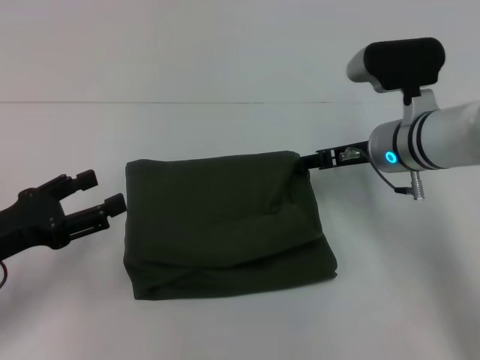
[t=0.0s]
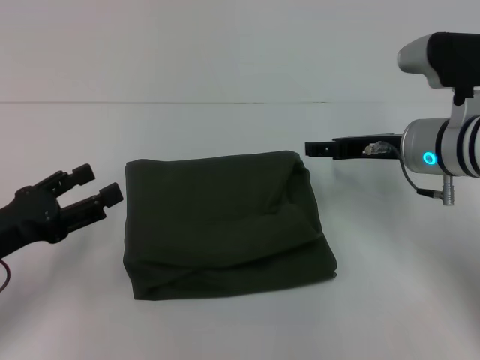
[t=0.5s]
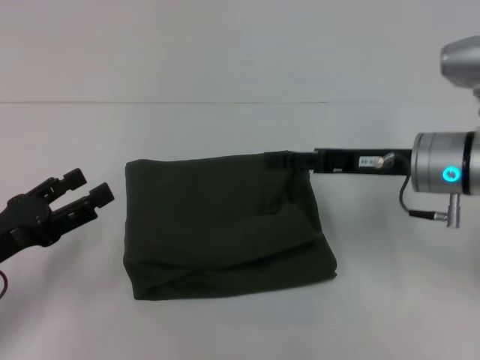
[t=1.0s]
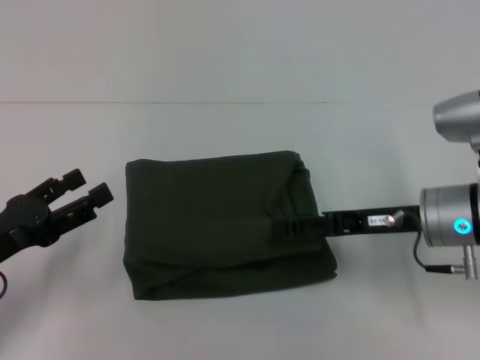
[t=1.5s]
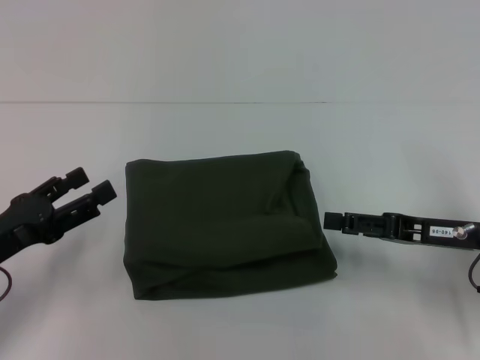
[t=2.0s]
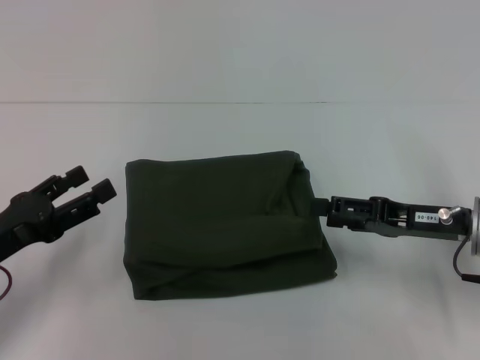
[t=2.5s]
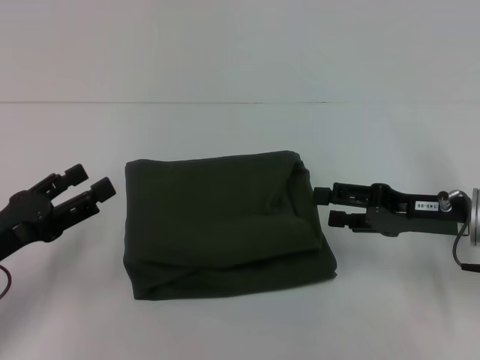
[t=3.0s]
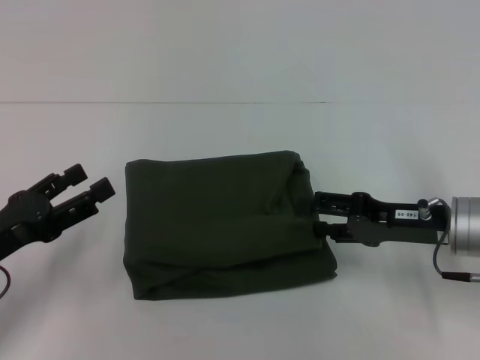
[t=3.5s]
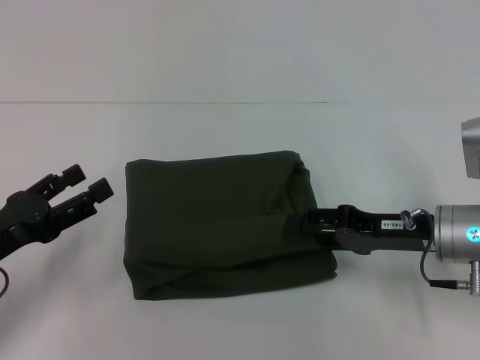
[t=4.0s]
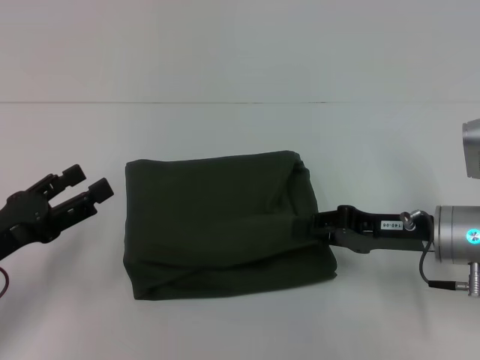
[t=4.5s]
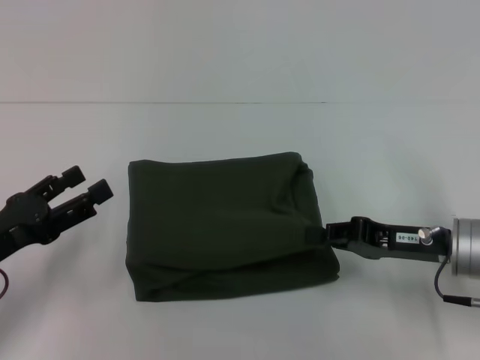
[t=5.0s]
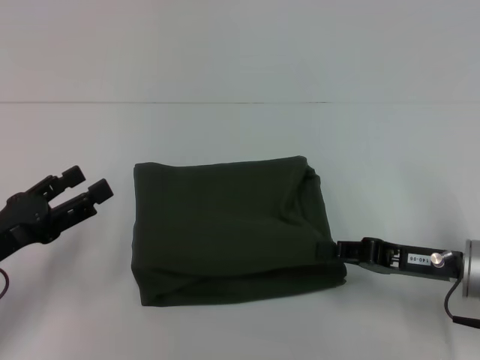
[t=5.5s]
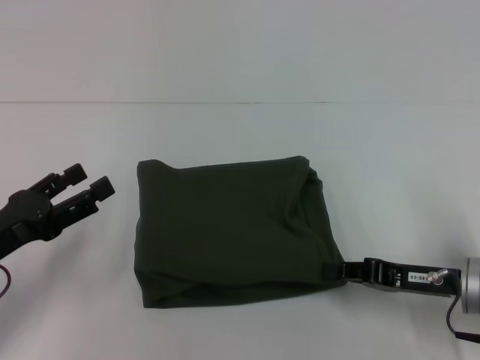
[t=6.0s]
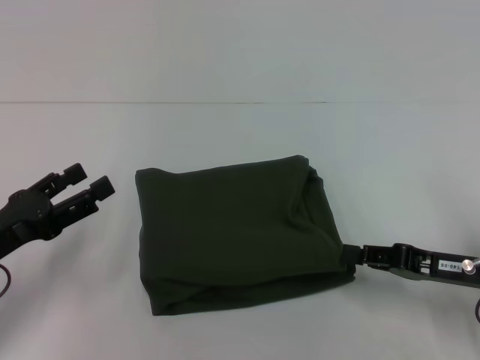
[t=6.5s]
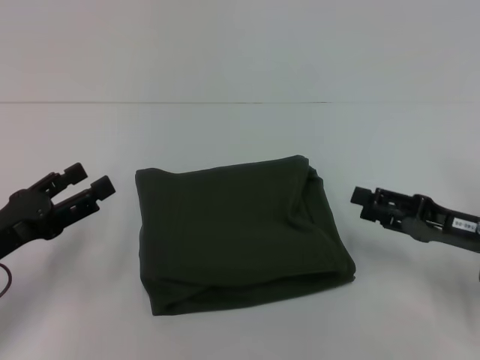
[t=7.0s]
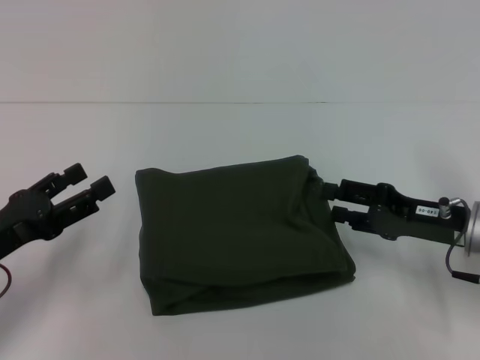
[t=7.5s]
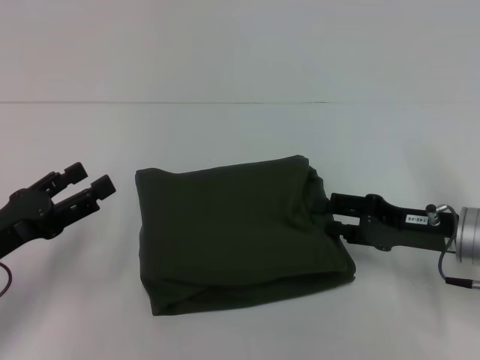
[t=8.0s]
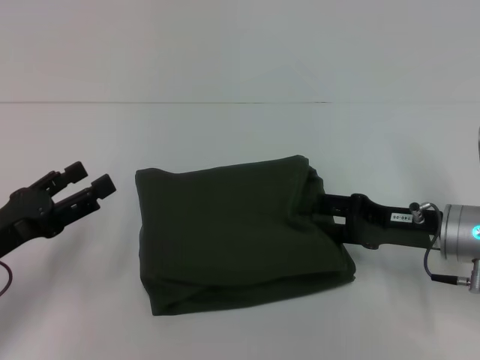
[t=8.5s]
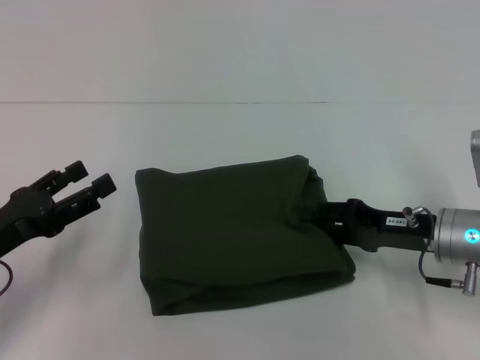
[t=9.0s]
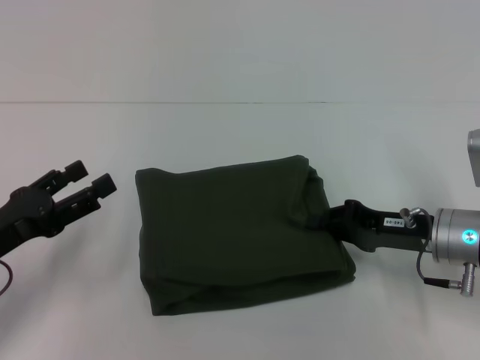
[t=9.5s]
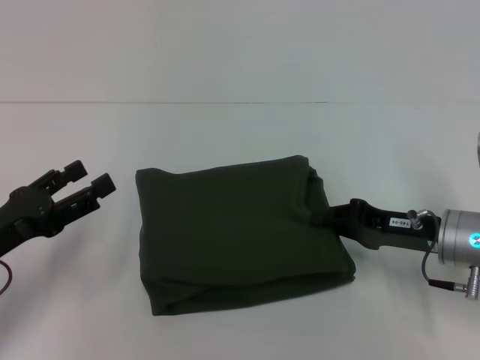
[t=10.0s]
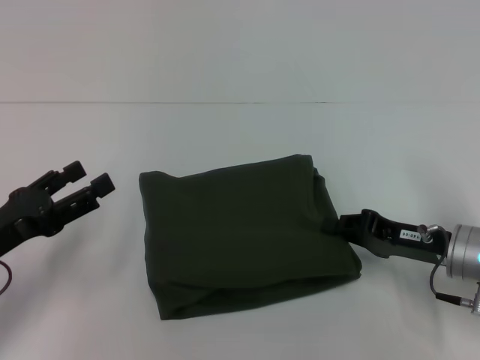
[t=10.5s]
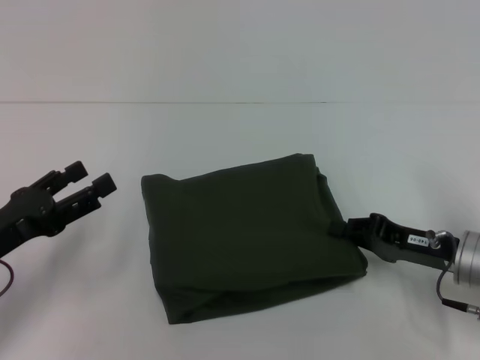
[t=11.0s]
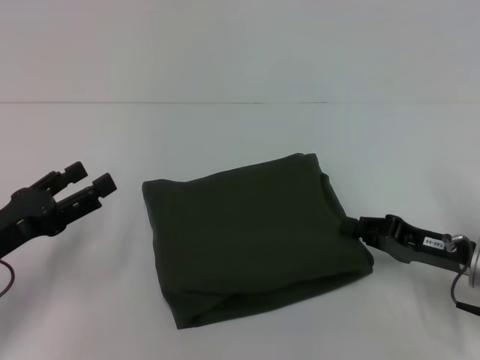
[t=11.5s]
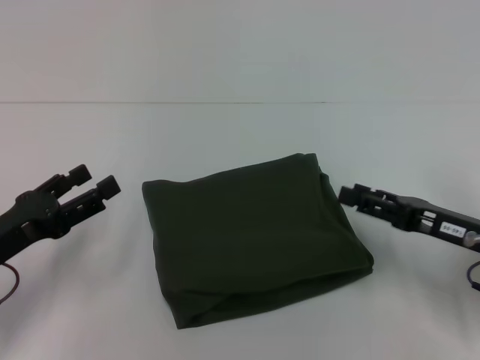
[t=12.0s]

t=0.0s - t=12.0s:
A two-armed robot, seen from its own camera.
t=0.0s - t=2.0s: The right gripper moves backward and to the right, some 15 cm.
t=2.0s - t=4.0s: The grippers make only small movements.
t=4.0s - t=6.0s: The right gripper changes place by approximately 5 cm, and closes.
t=6.0s - t=8.0s: The right gripper opens.
t=8.0s - t=10.0s: The right gripper closes its fingers.
t=10.0s - t=12.0s: The right gripper changes place by roughly 5 cm, and opens its fingers.

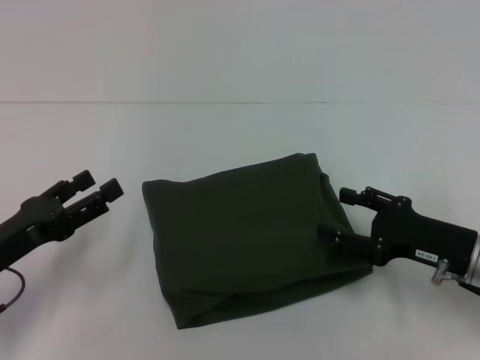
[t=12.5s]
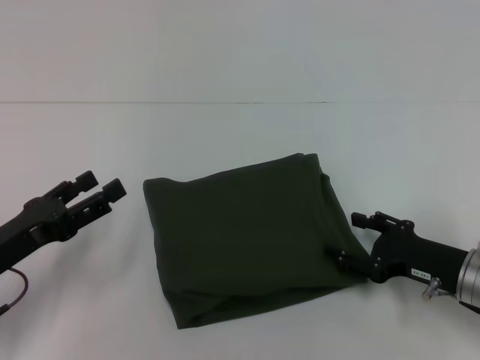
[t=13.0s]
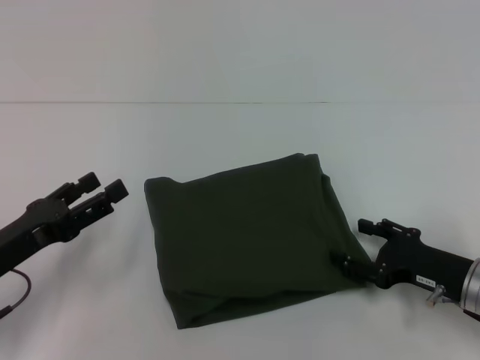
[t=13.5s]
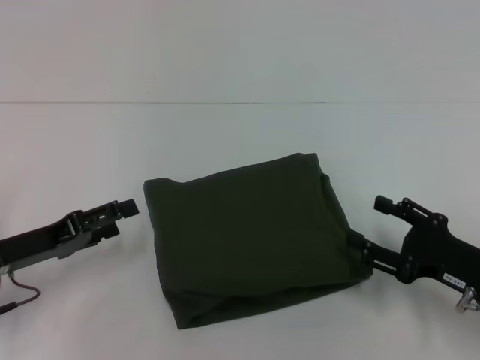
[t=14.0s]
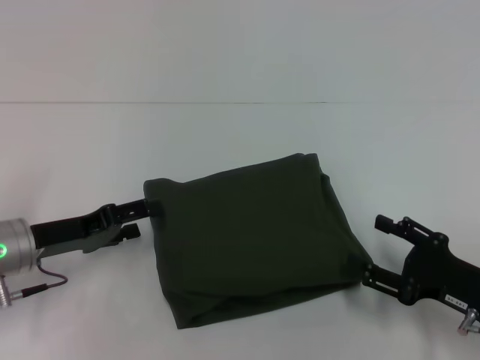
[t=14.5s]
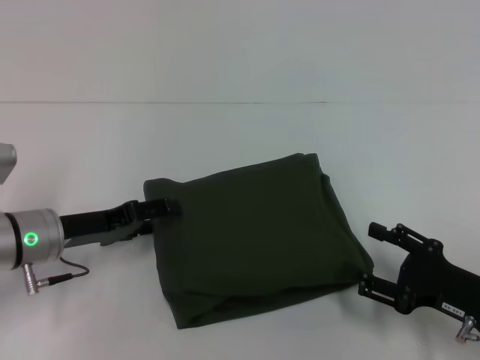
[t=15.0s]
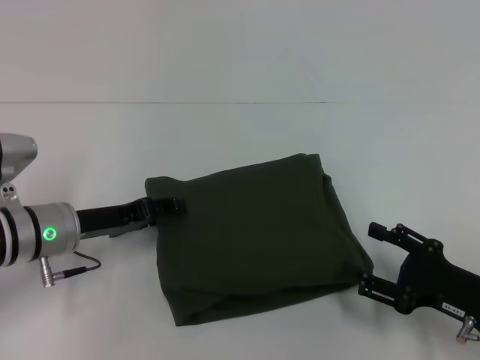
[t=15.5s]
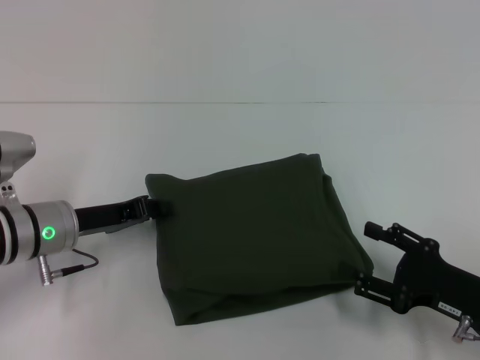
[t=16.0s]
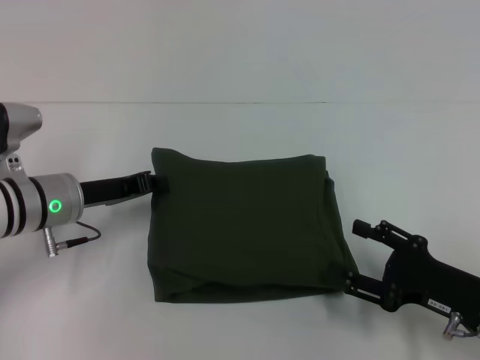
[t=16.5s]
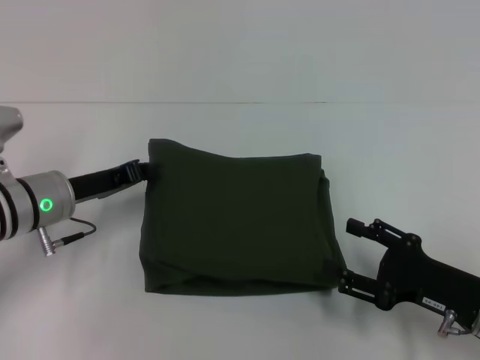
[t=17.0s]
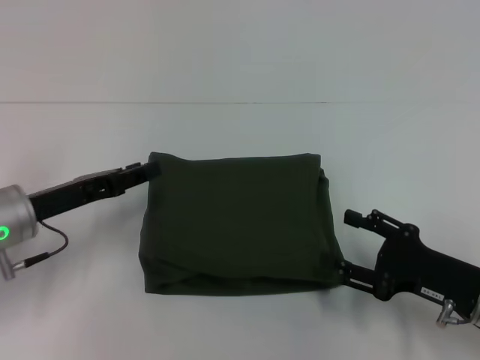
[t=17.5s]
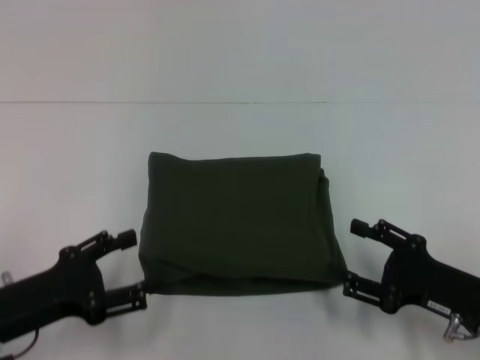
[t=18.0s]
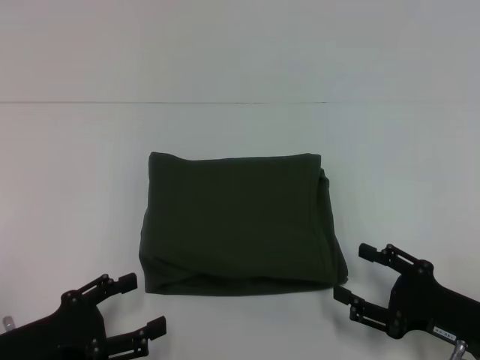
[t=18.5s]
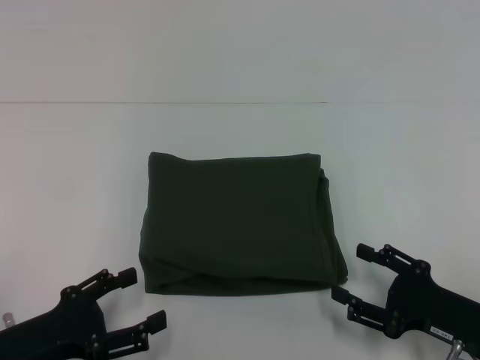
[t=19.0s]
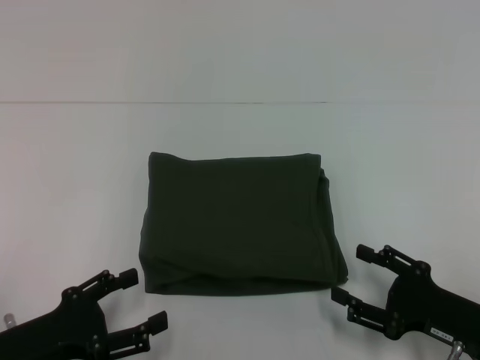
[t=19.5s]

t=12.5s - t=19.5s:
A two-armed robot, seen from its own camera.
t=12.5s - t=14.5s: The left gripper moves forward, some 5 cm; the right gripper is displaced backward by approximately 5 cm.
t=14.5s - t=16.0s: The left gripper closes up.
t=16.0s - t=17.5s: The grippers move only a little.
t=17.5s - t=19.5s: The left gripper is displaced backward by roughly 15 cm, and opens up.

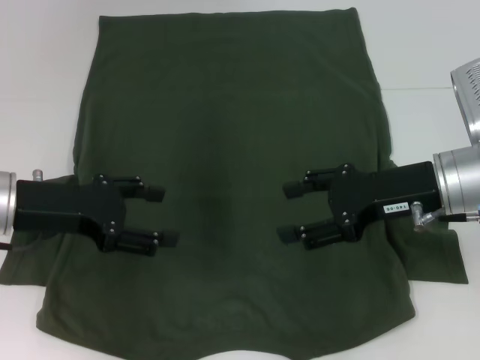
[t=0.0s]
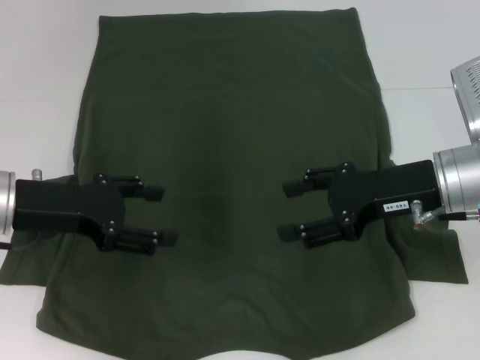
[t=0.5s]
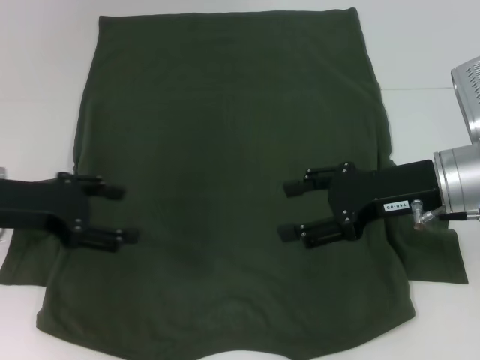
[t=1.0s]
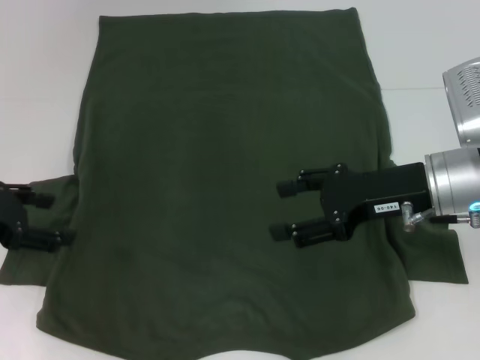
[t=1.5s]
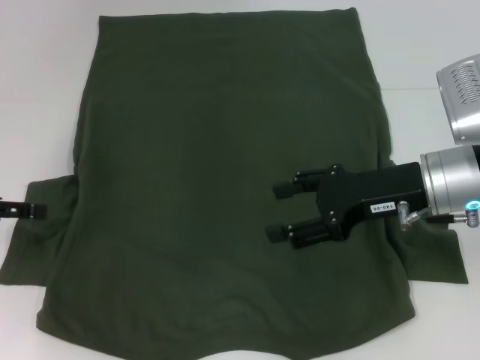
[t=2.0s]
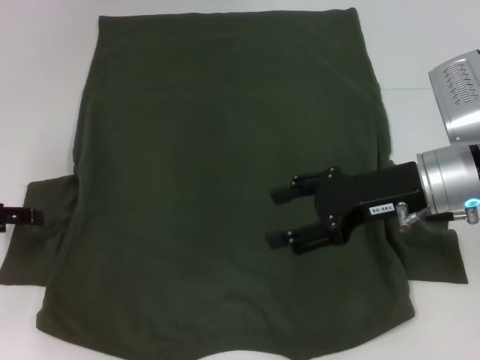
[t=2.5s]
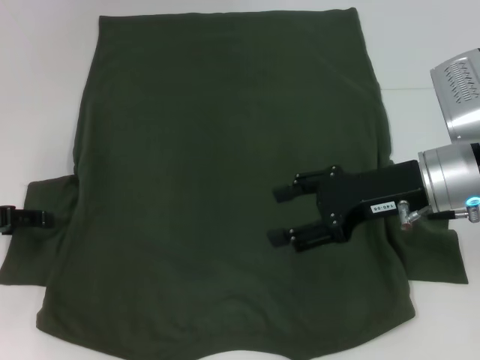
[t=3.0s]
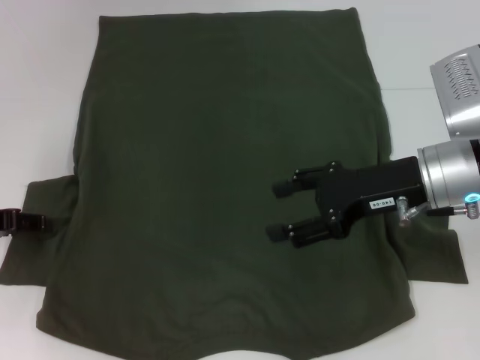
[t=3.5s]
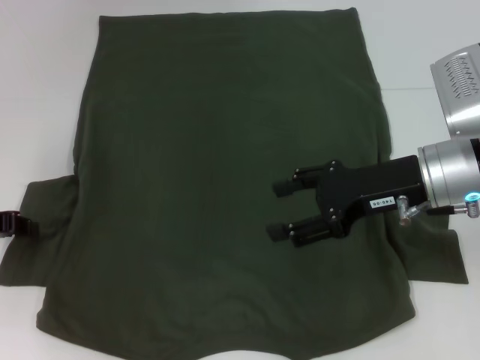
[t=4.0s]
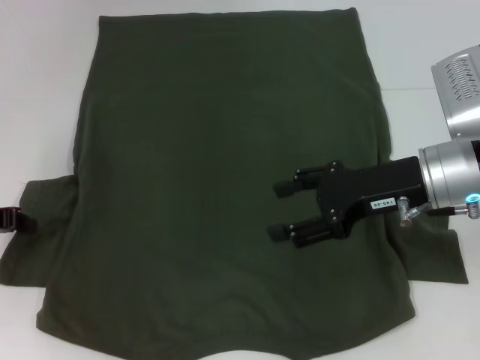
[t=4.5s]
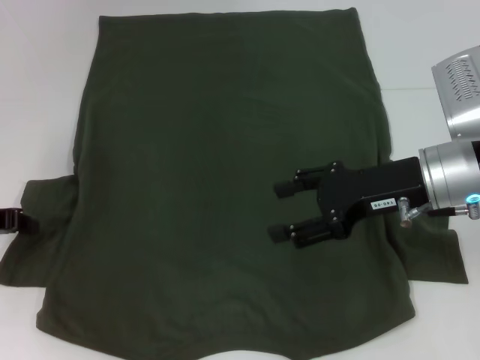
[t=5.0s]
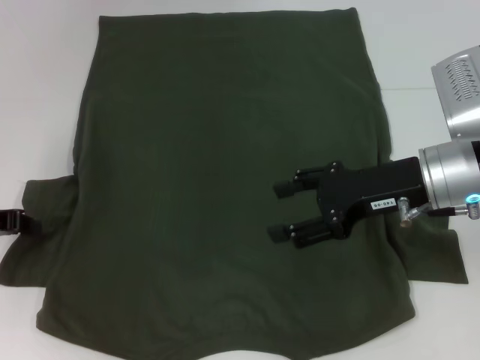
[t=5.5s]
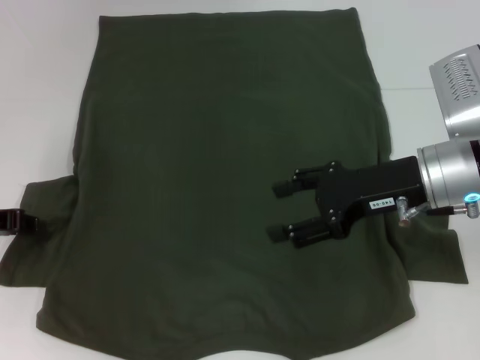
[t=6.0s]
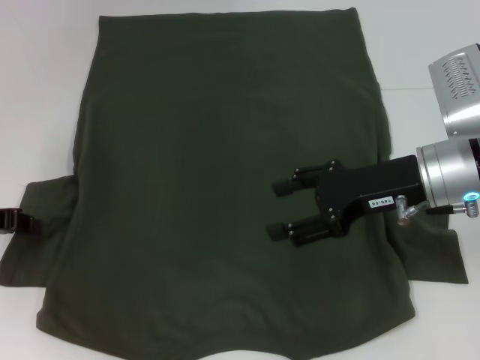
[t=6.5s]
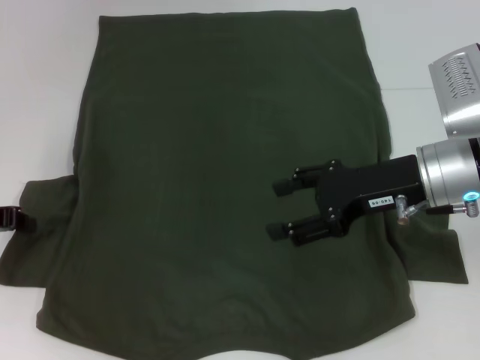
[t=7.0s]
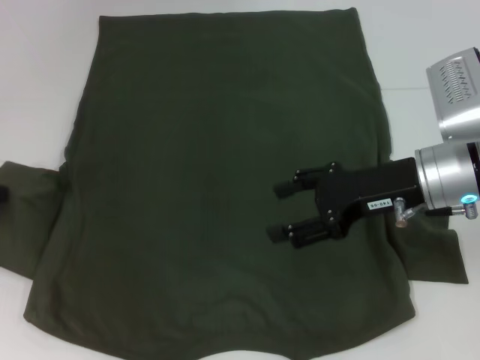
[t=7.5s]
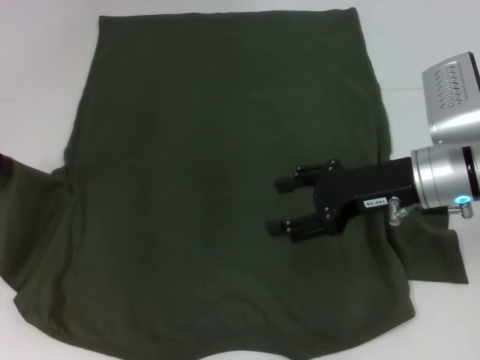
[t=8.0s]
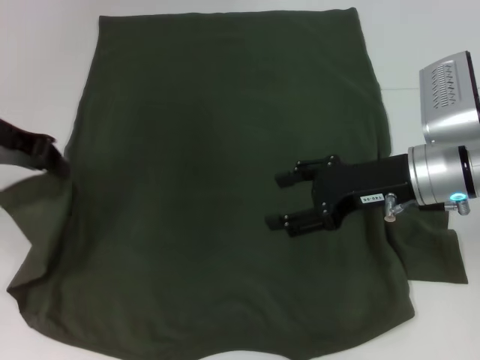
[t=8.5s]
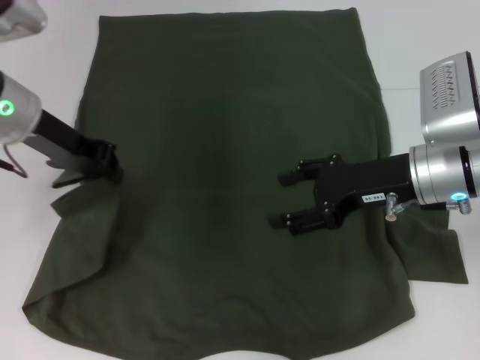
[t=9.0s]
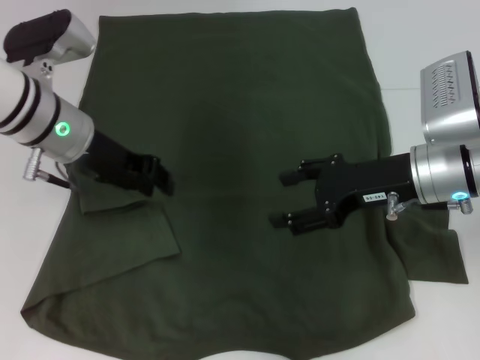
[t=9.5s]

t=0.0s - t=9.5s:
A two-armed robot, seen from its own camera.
t=0.0s - t=2.0s: The left gripper shifts some 10 cm to the left.
t=2.0s - t=4.0s: The left gripper closes its fingers.
t=4.0s - t=5.5s: Neither gripper changes place.
t=5.5s - t=7.5s: The left gripper moves upward, approximately 5 cm.
t=7.5s - t=9.5s: The left gripper is displaced to the right by some 15 cm.
